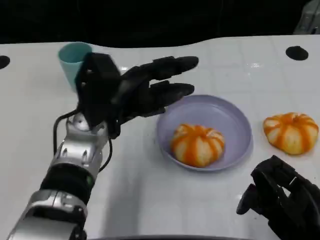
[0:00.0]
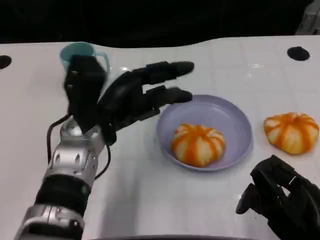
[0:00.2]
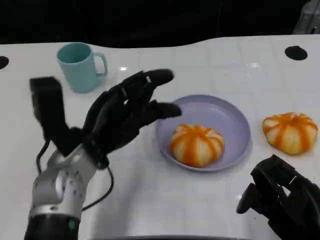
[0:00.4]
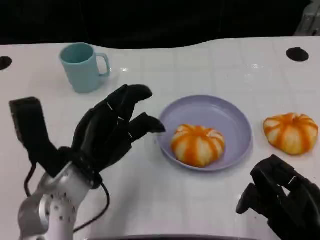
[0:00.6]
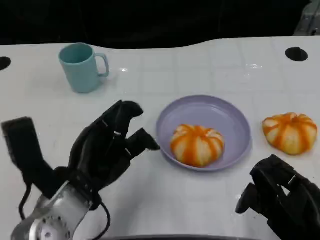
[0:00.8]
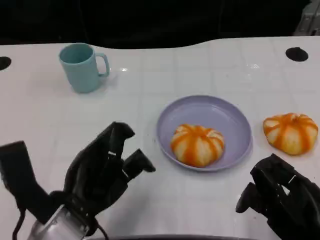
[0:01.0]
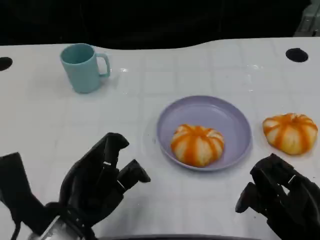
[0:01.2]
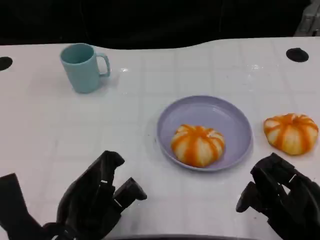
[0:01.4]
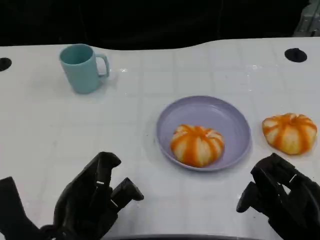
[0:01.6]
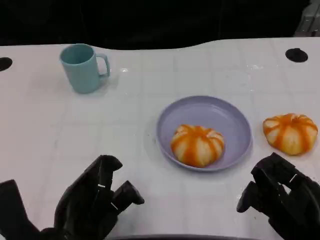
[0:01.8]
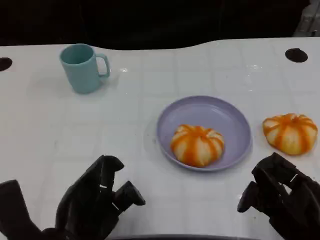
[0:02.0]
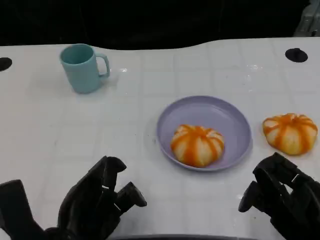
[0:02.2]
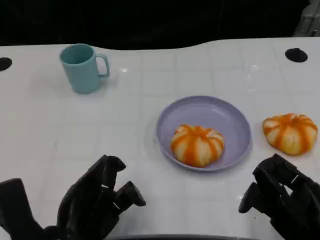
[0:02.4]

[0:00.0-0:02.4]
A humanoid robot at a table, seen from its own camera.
Task of the whole recording: Grasp the bread from the table and place it into the plate.
0:00.0 to 0:01.2: The left hand travels backward by approximately 15 cm.
0:01.2 to 0:02.4: The hands move only a little.

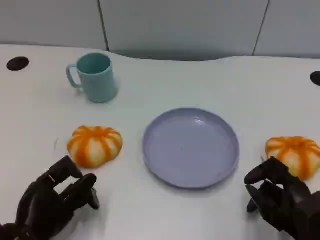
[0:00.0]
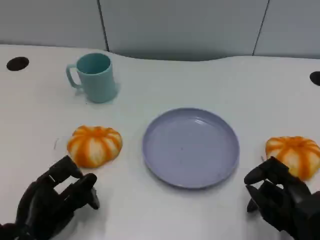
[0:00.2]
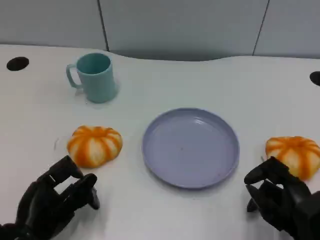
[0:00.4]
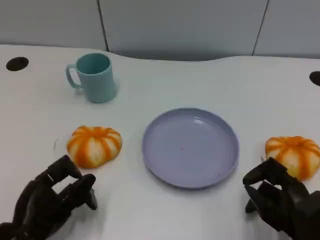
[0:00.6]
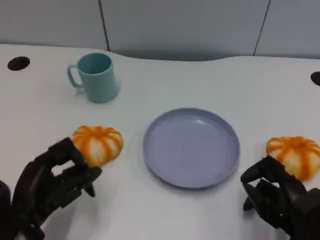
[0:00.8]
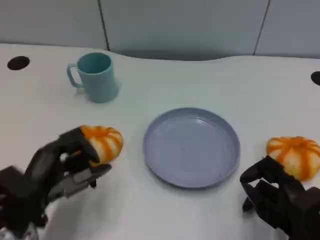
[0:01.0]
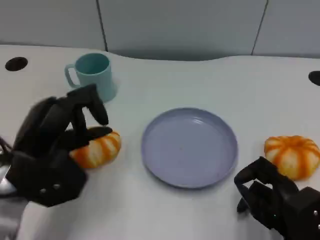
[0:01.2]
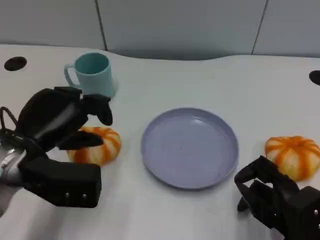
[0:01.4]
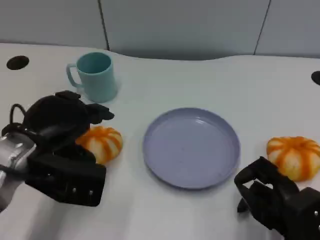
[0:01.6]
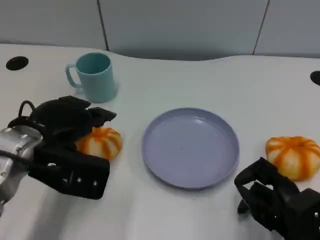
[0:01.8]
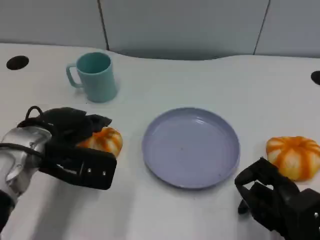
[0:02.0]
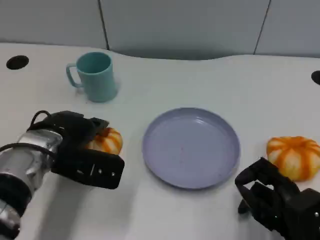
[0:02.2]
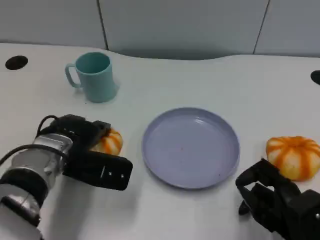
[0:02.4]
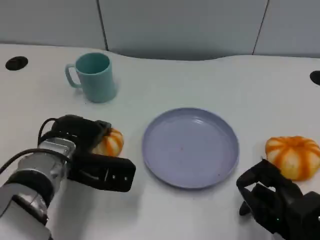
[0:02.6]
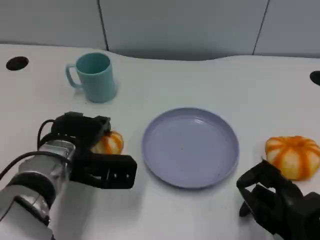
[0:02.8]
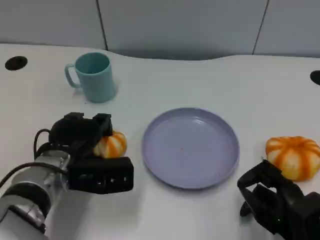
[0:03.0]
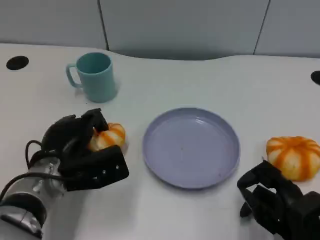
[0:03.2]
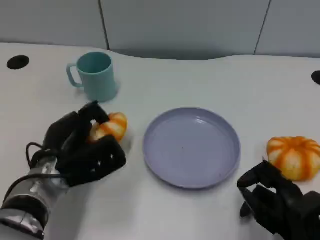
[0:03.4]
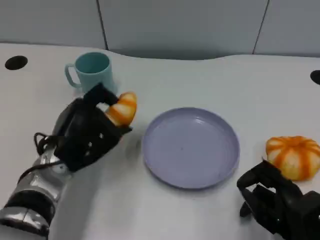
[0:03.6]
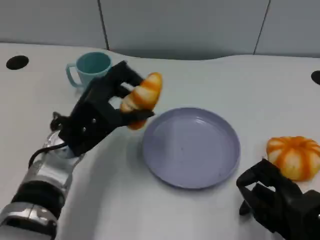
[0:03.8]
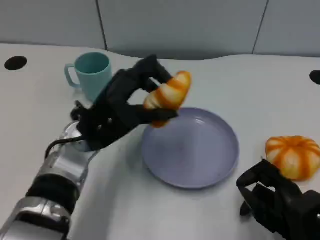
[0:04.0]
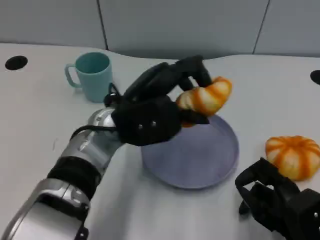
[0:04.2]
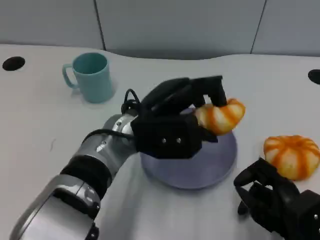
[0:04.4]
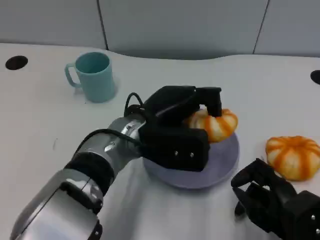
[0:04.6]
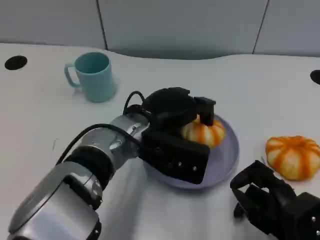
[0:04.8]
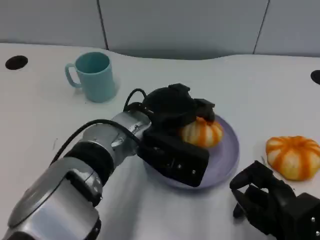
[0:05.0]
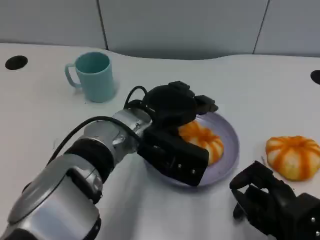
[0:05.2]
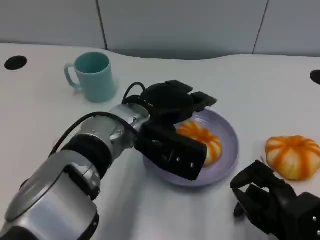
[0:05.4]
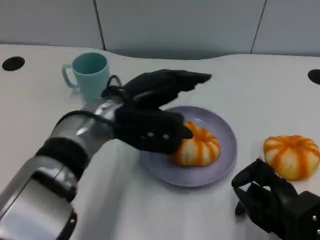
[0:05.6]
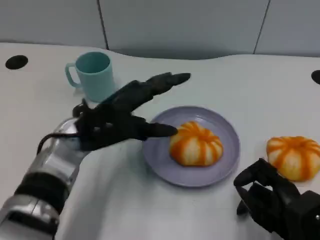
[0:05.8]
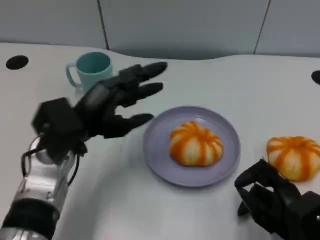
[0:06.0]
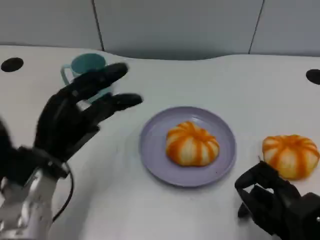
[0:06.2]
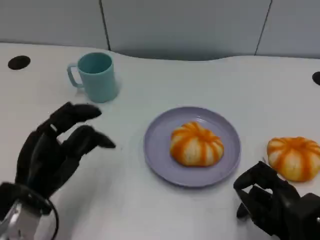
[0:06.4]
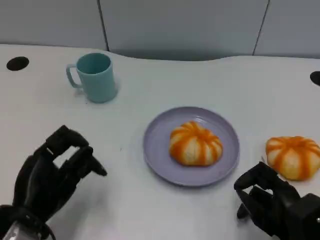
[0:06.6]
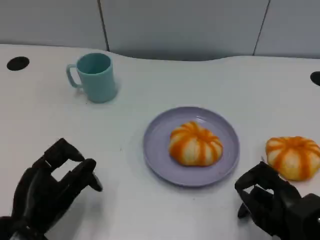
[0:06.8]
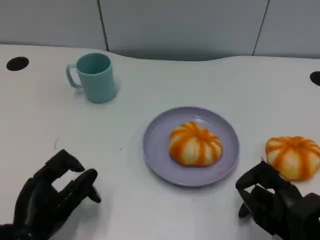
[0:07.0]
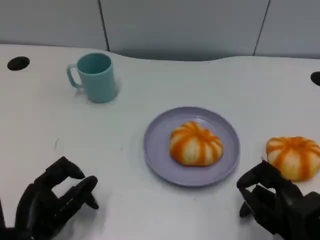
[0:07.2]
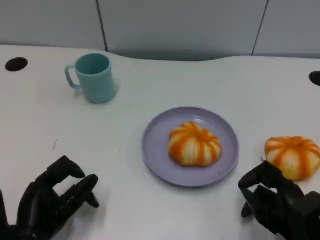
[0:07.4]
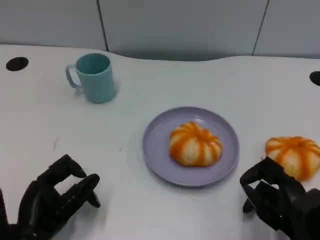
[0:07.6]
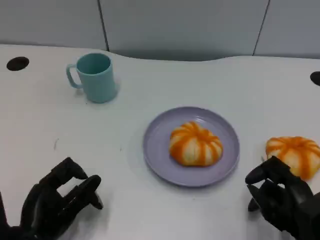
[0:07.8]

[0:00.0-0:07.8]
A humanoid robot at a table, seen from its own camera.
Task of the whole recording: Grasp the bread from the table and place it into the plate.
0:00.0 to 0:01.6: The left hand moves upward and forward, roughly 15 cm.
0:01.6 to 0:03.2: The left hand shifts approximately 10 cm downward.
0:03.2 to 0:04.6: The left hand shifts some 15 cm to the right and upward.
0:04.6 to 0:06.2: The left hand shifts roughly 15 cm to the left.
0:06.2 to 0:07.8: The left hand moves backward and downward, approximately 10 cm.

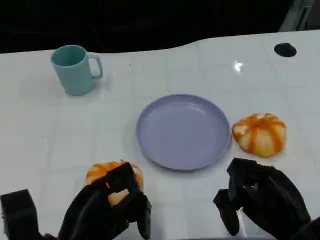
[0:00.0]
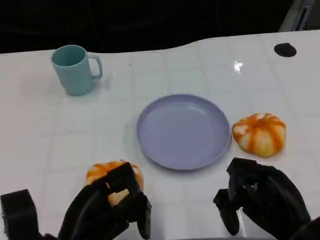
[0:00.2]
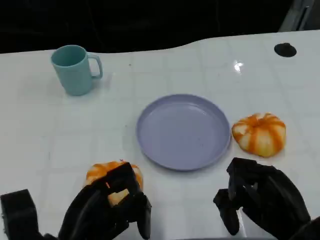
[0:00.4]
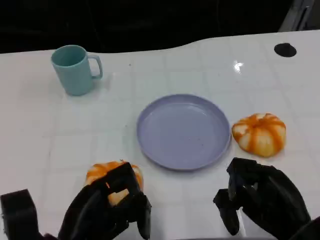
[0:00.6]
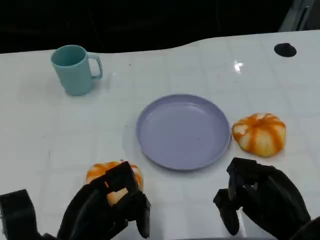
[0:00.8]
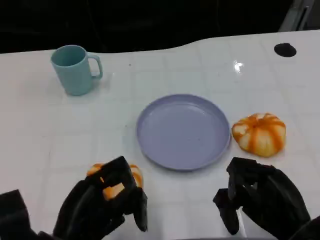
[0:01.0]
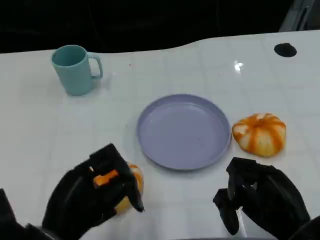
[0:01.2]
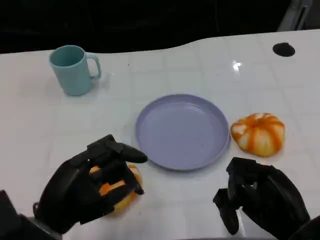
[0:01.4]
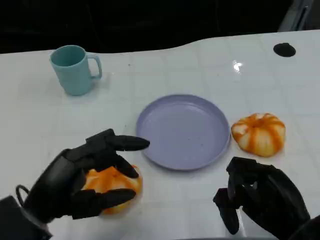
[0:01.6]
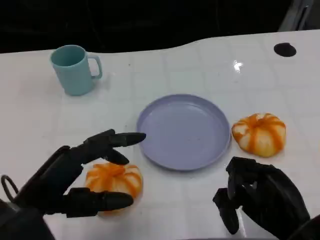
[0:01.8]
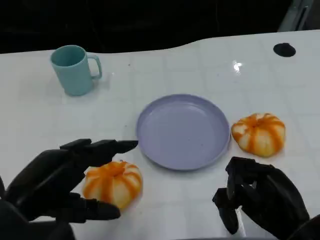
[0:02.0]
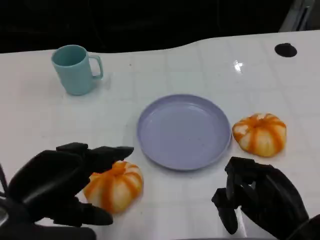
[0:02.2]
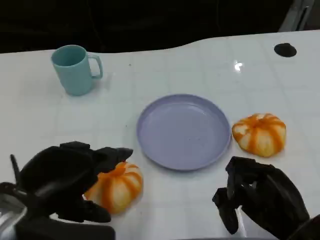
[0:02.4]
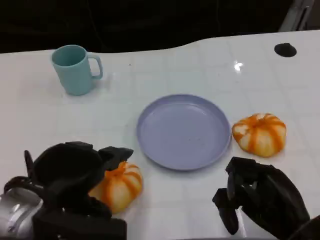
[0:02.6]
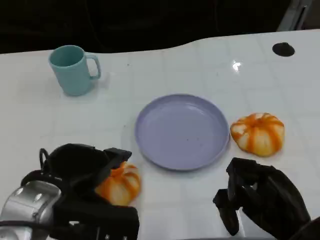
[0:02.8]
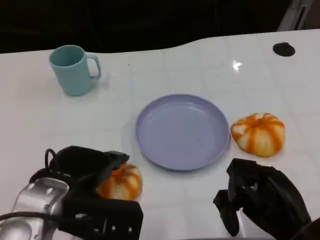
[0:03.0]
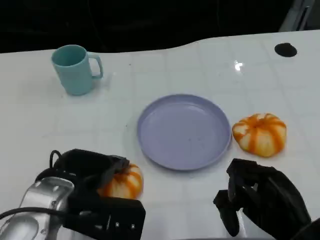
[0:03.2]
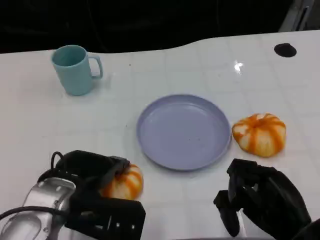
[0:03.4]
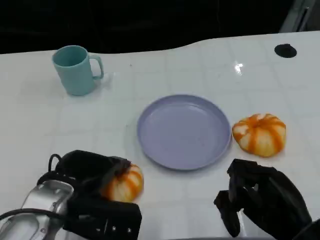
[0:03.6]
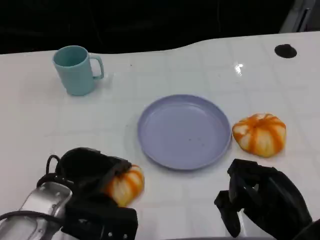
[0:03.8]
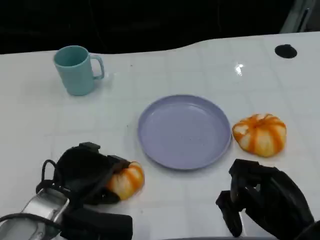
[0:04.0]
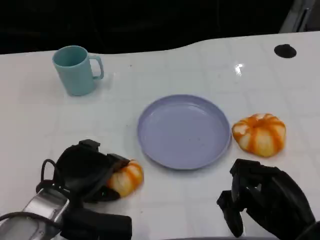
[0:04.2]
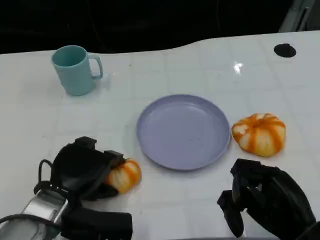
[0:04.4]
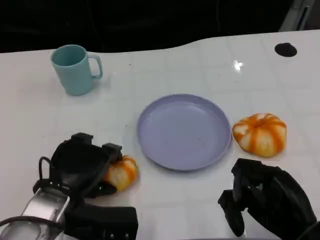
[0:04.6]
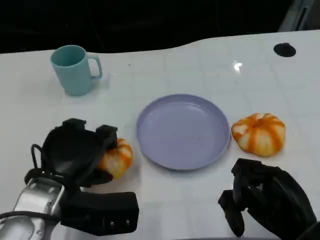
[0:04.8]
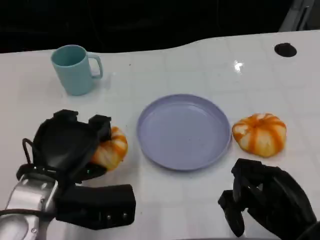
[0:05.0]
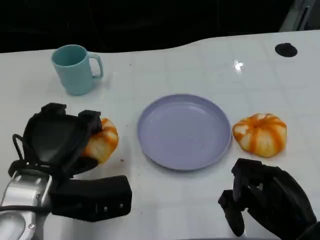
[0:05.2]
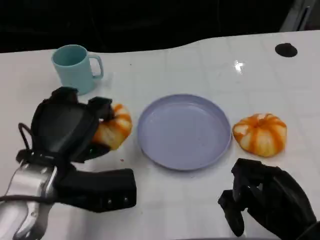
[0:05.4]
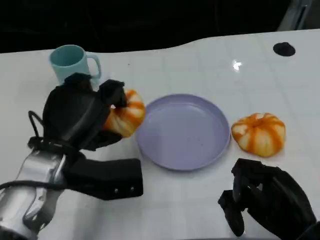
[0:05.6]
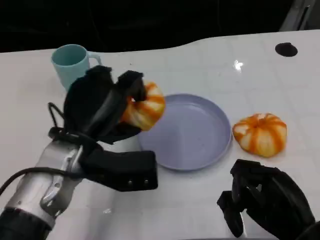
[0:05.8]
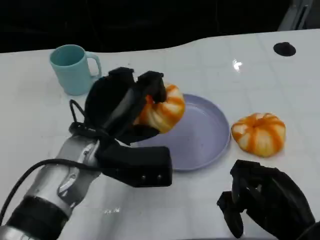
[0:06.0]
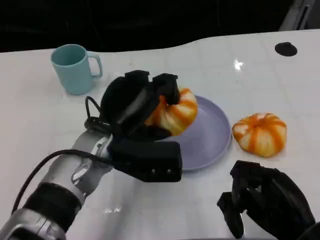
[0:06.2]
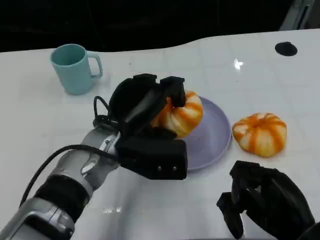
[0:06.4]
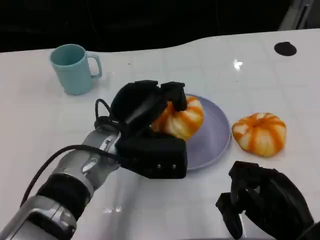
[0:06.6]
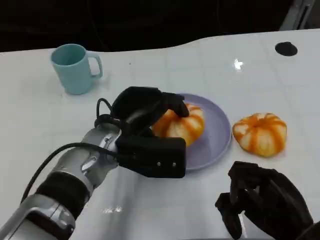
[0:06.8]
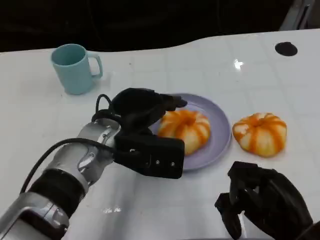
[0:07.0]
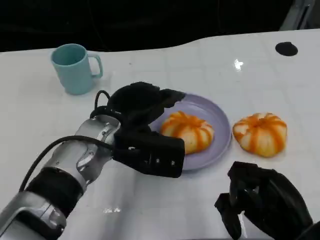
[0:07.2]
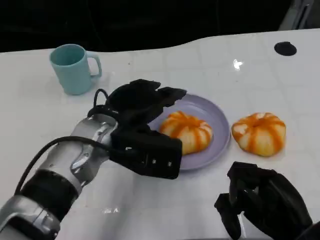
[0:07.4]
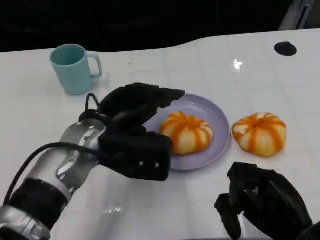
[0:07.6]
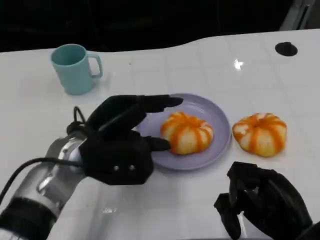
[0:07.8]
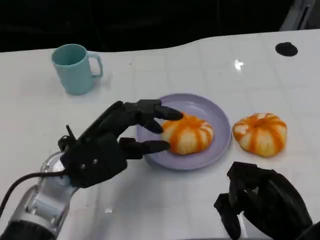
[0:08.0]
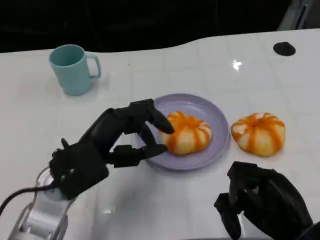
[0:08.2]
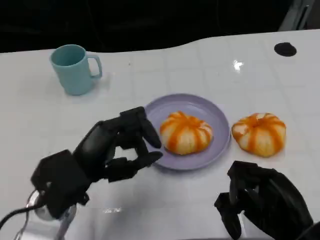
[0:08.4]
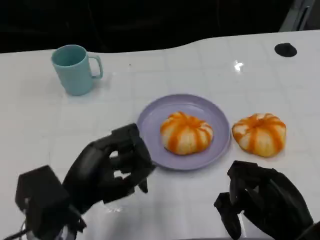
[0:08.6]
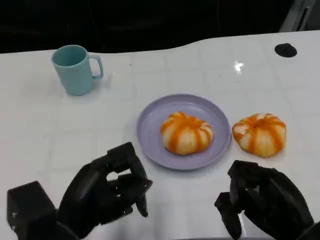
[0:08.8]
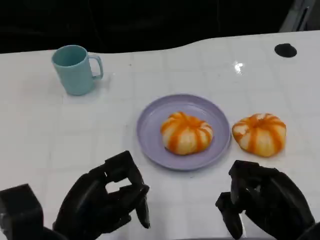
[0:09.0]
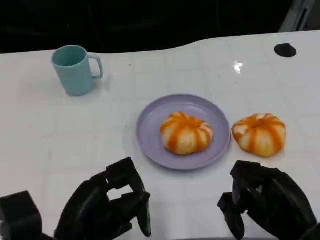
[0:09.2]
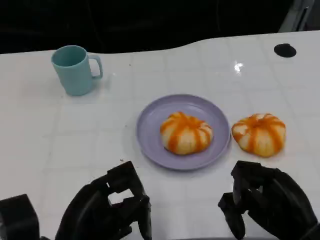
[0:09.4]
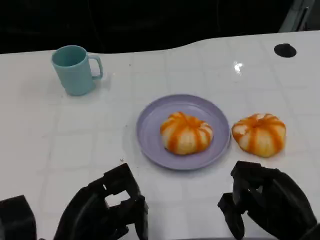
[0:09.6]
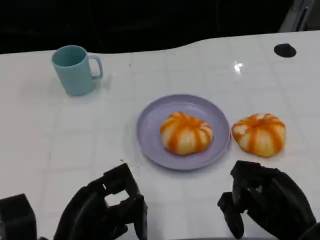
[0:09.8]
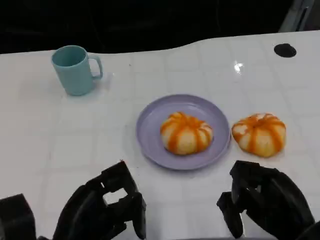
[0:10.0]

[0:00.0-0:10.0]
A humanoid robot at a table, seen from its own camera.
Task of the whole recording: Grasp the bread from the table and place it into the plate.
0:01.4 to 0:02.8: The left hand changes place by some 5 cm.
0:02.8 to 0:04.2: The left hand moves downward, roughly 10 cm.
0:04.2 to 0:05.8: The left hand goes about 10 cm upward.
0:07.2 to 0:08.6: The left hand is displaced backward and to the left by some 15 cm.

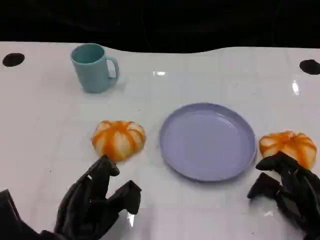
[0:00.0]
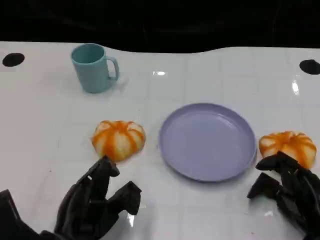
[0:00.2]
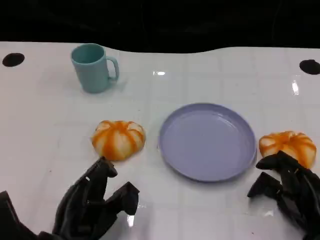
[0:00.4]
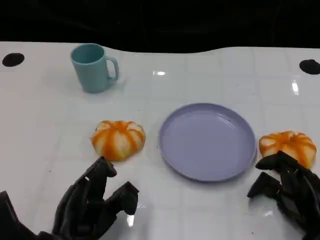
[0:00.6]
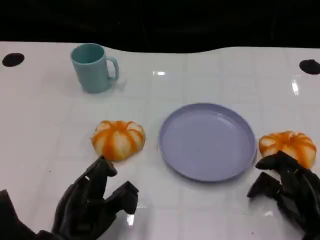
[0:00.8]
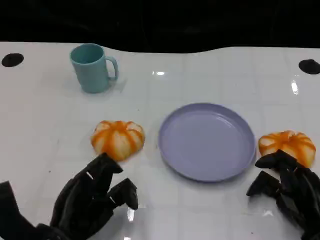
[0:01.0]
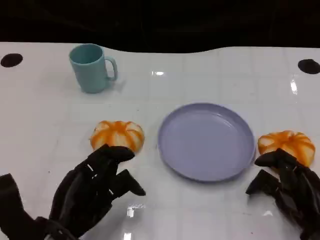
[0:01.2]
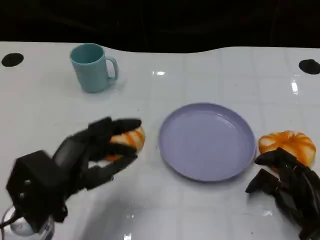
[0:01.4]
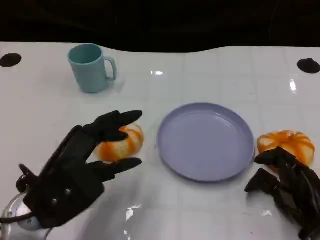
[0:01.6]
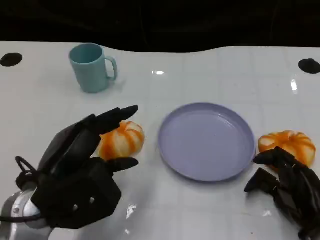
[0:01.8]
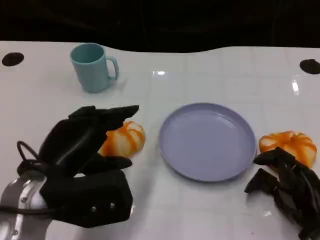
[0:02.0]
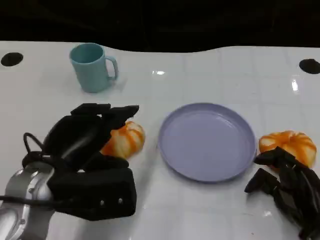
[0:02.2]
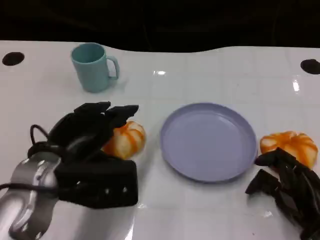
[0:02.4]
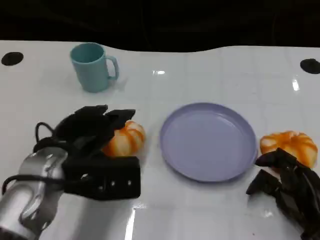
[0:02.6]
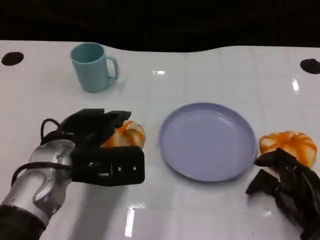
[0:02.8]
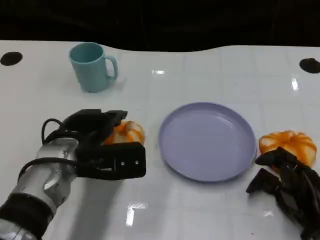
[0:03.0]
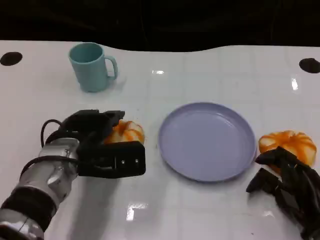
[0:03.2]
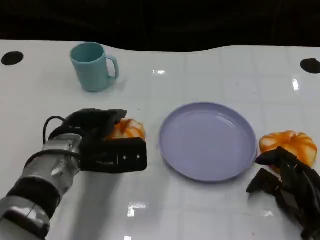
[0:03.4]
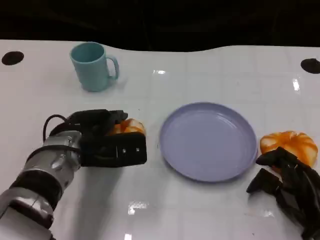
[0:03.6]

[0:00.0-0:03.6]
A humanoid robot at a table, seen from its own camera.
Task of the whole recording: Grasp the bread from the table and place it into the plate.
0:00.0 to 0:01.8: The left hand shifts approximately 10 cm upward.
0:01.8 to 0:03.6: The left hand shifts roughly 10 cm forward.
